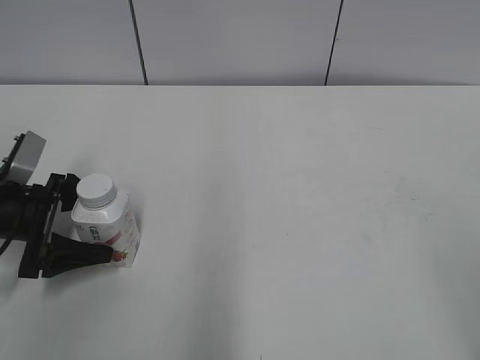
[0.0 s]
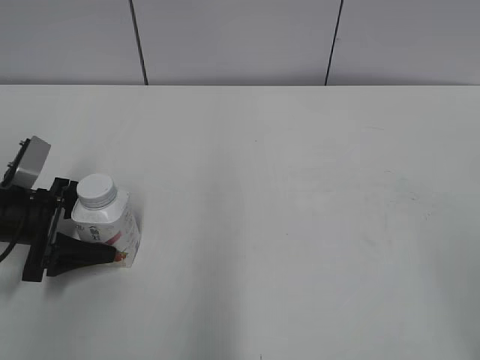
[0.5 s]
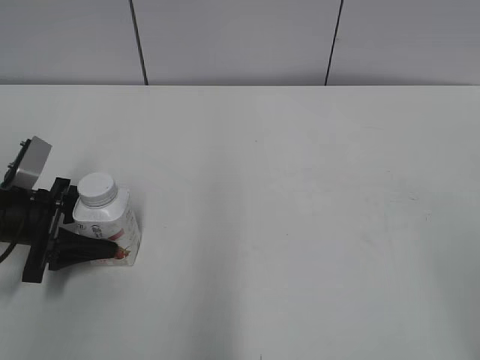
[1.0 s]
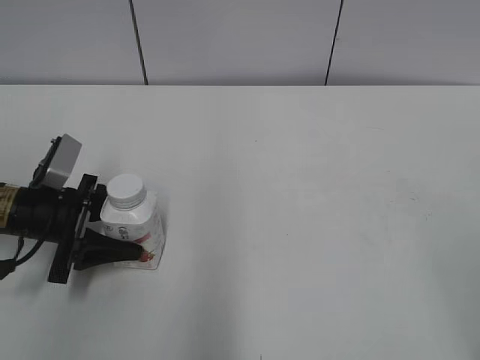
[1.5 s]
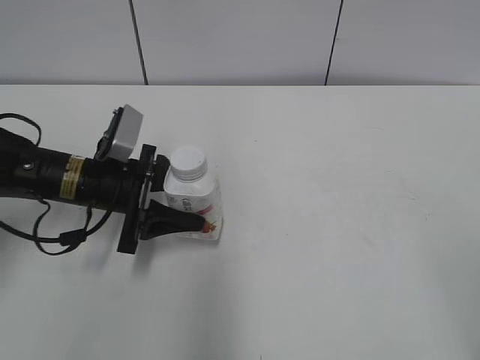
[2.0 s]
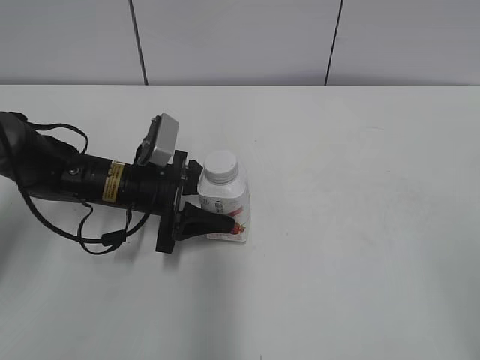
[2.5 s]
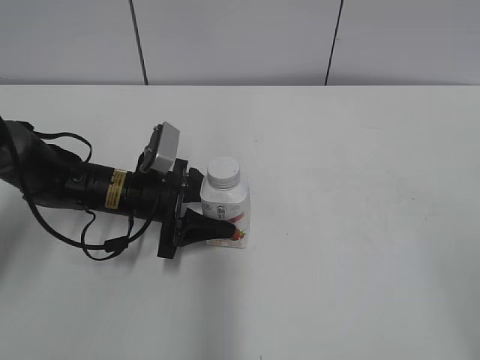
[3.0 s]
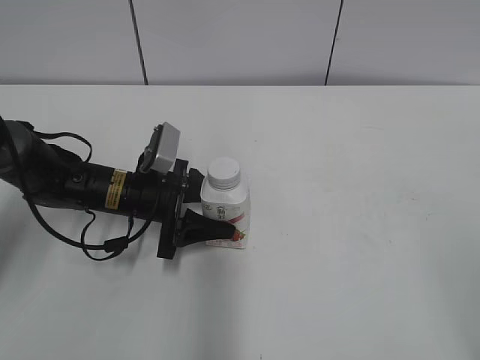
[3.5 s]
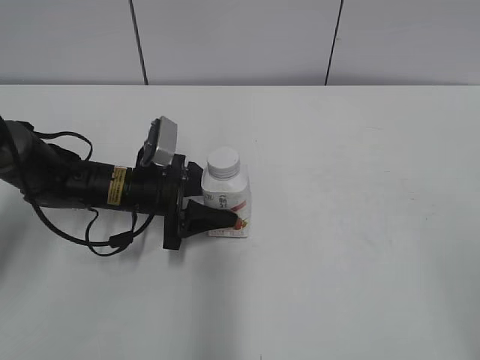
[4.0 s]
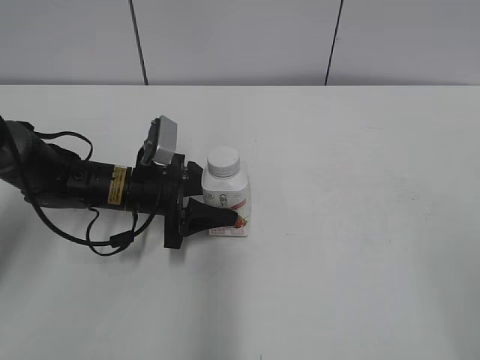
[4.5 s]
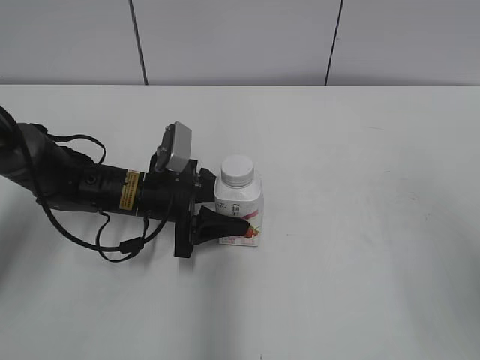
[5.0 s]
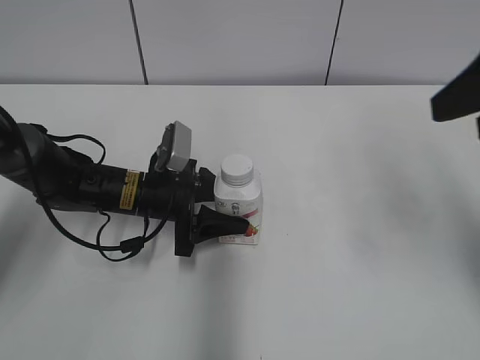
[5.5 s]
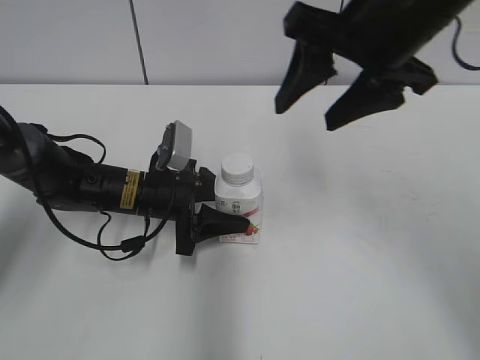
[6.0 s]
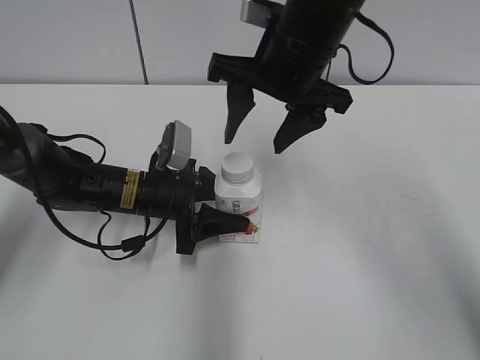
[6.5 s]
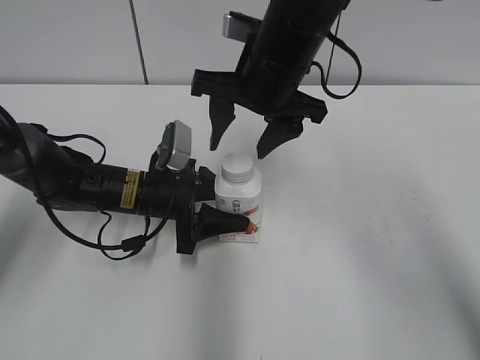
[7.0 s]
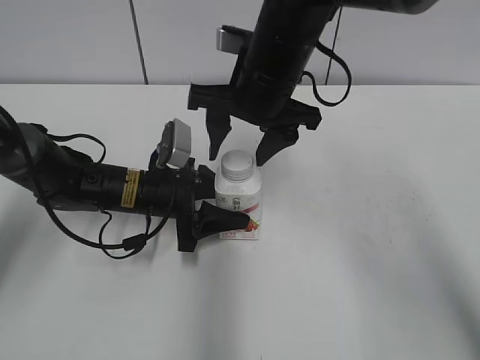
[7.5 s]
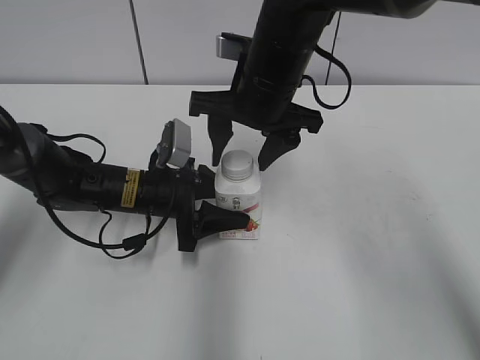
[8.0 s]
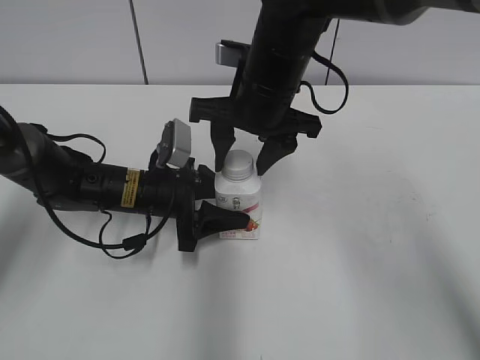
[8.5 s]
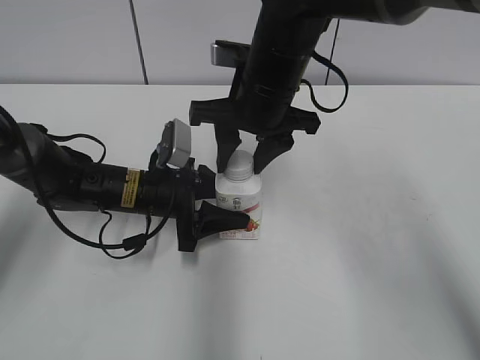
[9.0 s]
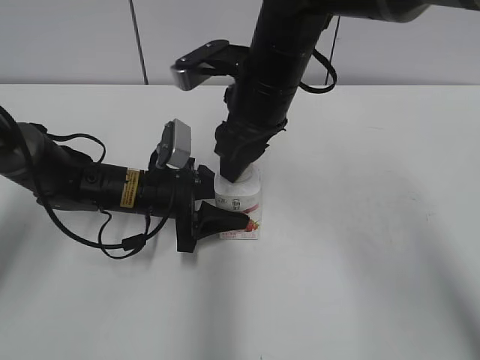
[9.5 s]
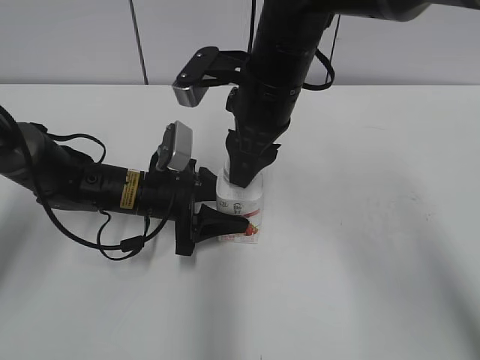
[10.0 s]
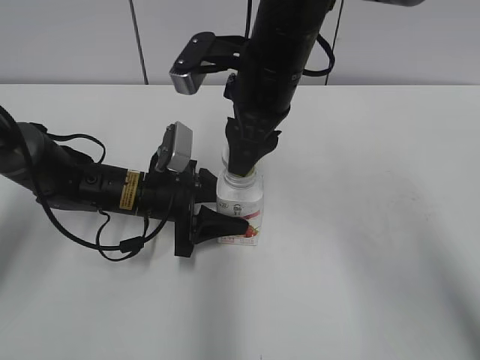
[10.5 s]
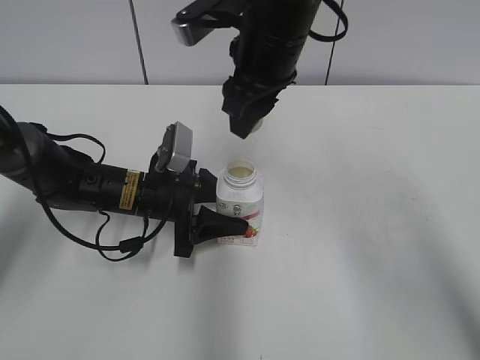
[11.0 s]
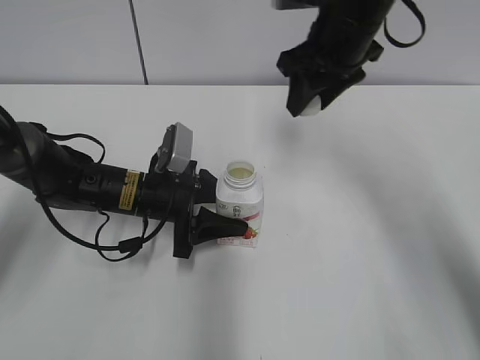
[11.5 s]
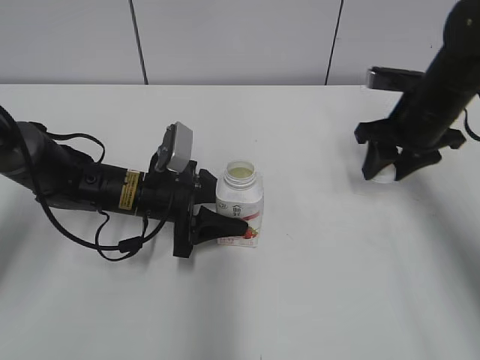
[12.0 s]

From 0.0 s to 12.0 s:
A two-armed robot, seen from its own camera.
Step, from 1.5 s to 3.0 s: Move the Yili Changqing from left to right.
From 0.0 s to 2.0 s: The left gripper heads to the right, covering about 10 cm, and closes up.
From 2.0 s to 4.0 s: The left gripper shifts by some 5 cm.
From 4.0 s to 6.0 s: The right gripper goes some 35 cm forward and to the left.
From 6.0 s to 8.0 s: The right gripper goes approximately 15 cm downward, to the left and forward.
From 8.0 s to 10.0 s: The right gripper closes its fingers.
From 10.0 s to 12.0 s: The right gripper heads to the right, covering approximately 20 cm.

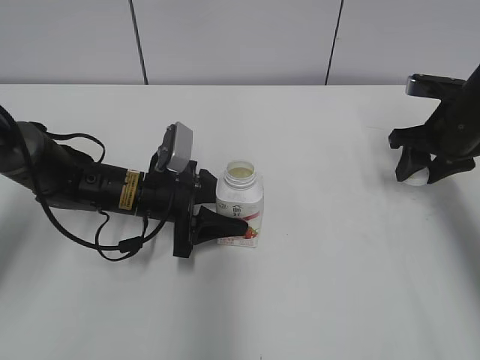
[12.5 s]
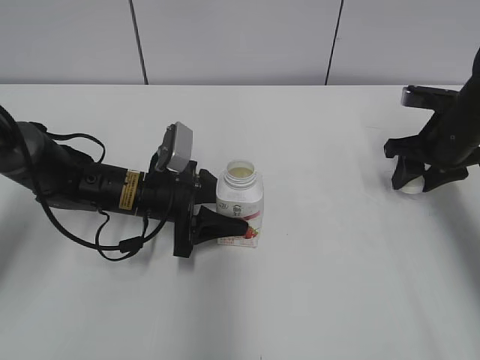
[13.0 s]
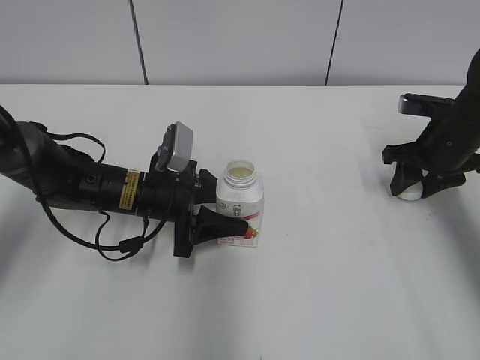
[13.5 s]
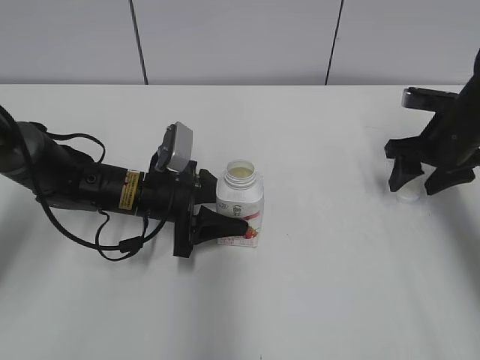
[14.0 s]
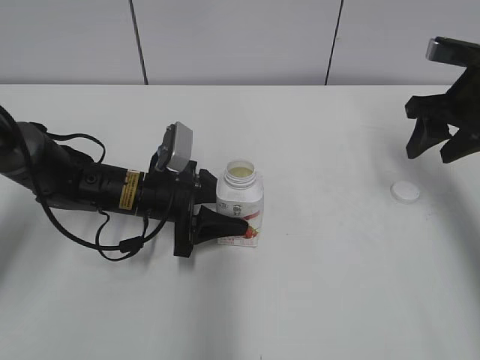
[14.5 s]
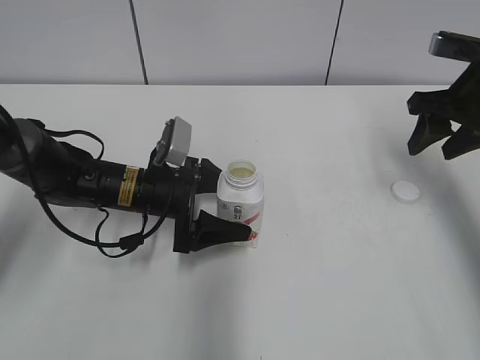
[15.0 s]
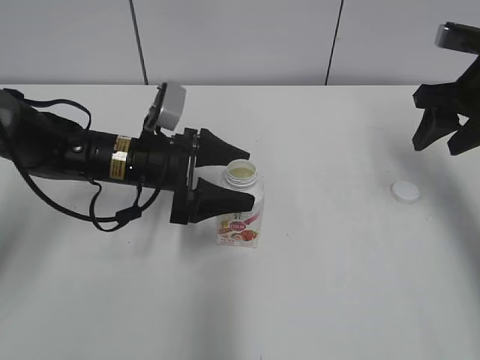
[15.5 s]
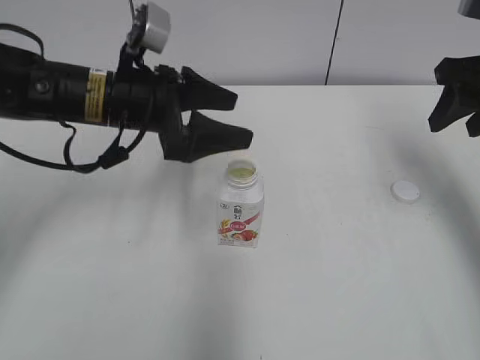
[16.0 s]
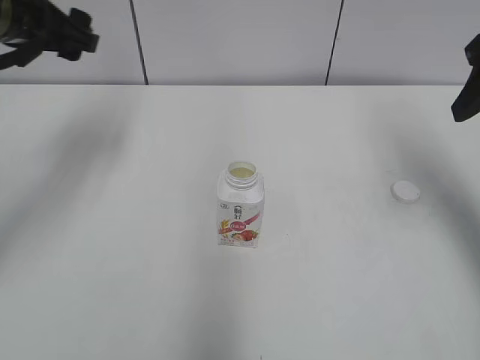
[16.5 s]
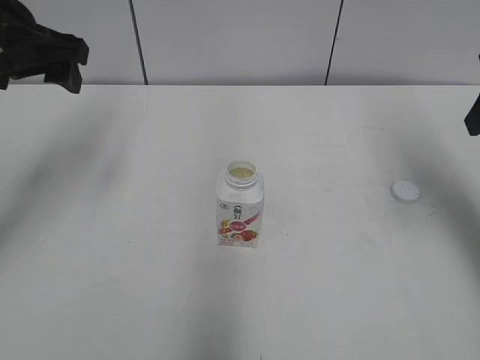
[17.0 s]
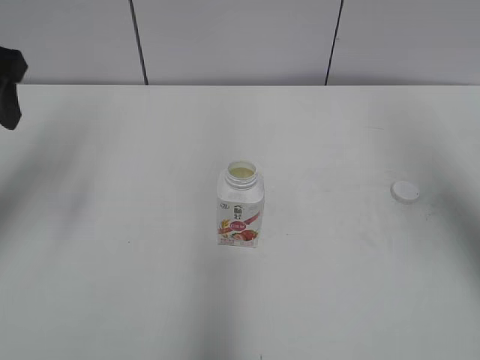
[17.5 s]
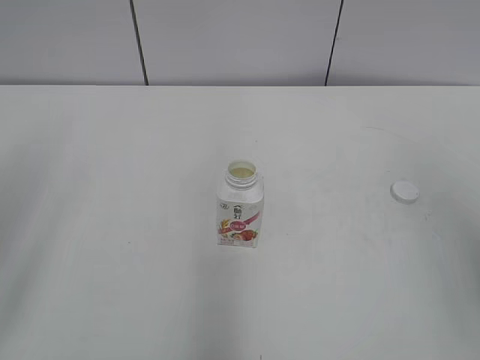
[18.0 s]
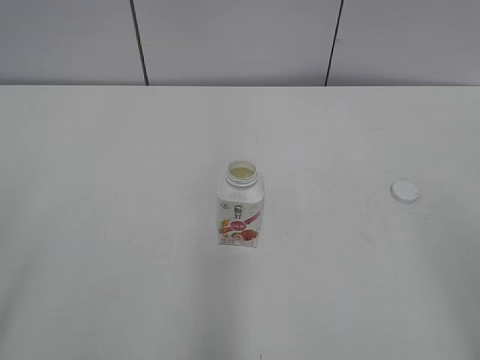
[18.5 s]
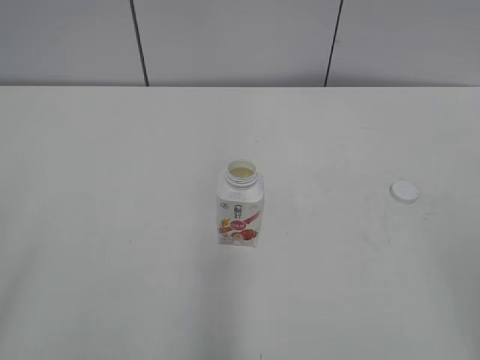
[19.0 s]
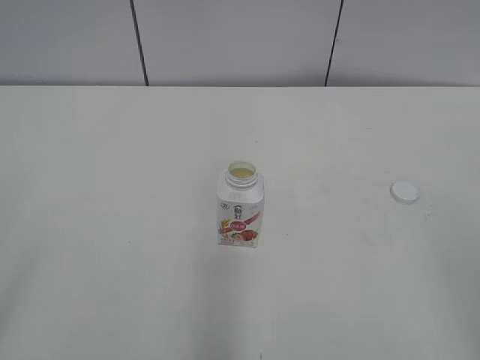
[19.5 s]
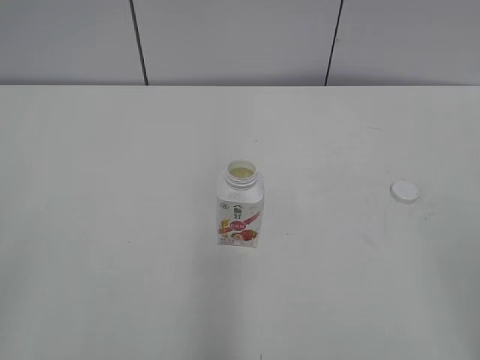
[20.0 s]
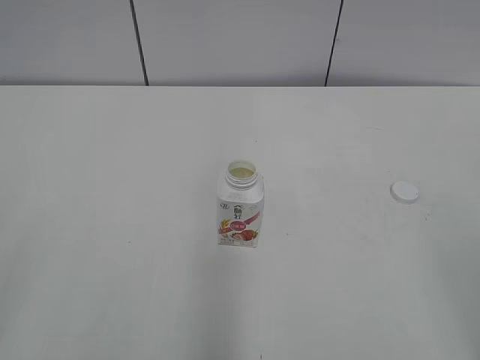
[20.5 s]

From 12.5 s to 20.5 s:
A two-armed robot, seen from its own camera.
From 12.5 s to 14.5 s: The right gripper heads upward, covering about 5 cm, and opens.
From 14.5 s to 16.5 s: The left gripper goes some 25 cm upward and to the left, and opens, while the right gripper moves upward and backward, some 10 cm.
From 16.5 s to 18.5 s: The grippers both shift backward by some 30 cm.

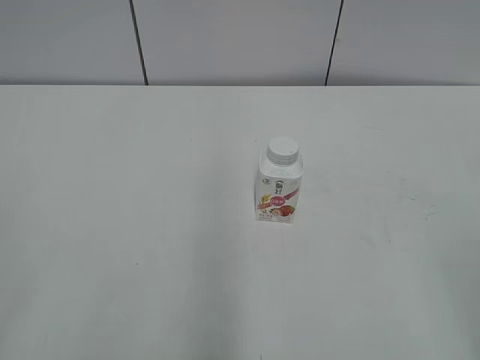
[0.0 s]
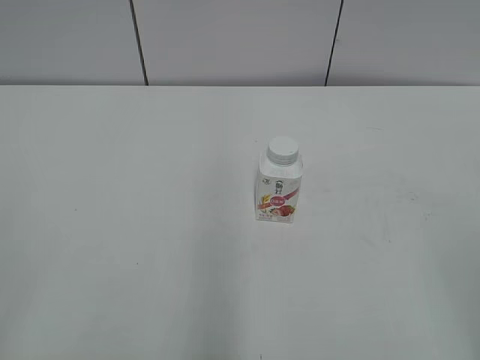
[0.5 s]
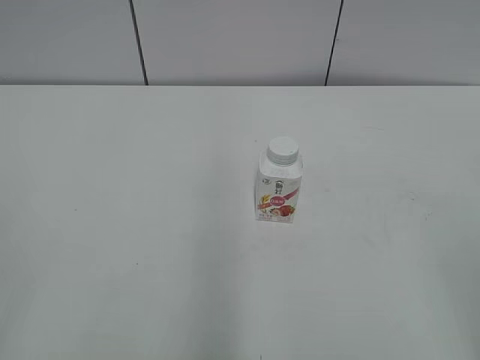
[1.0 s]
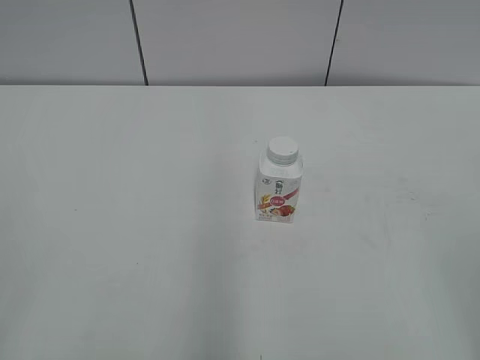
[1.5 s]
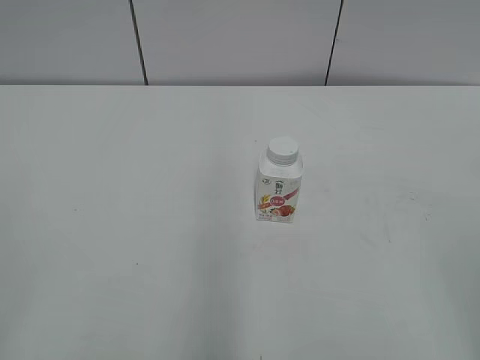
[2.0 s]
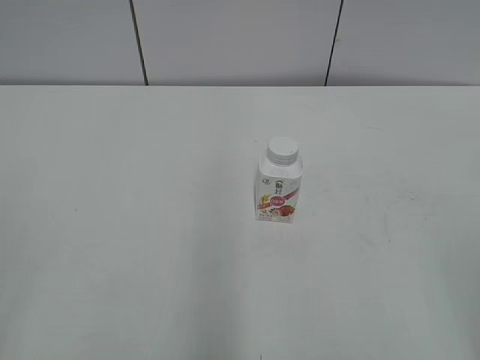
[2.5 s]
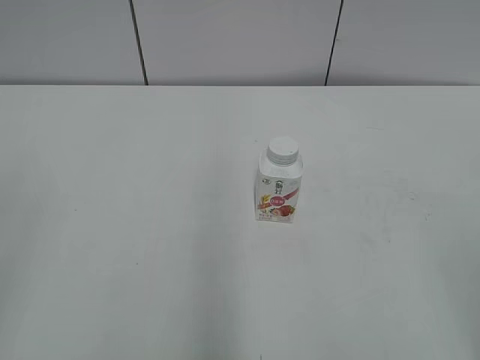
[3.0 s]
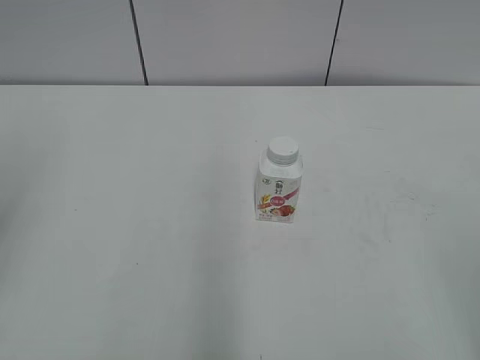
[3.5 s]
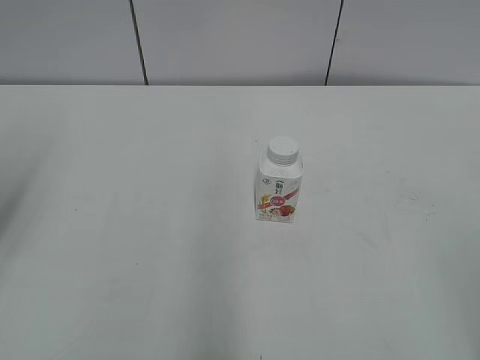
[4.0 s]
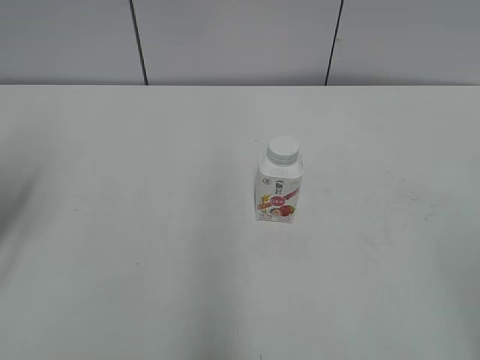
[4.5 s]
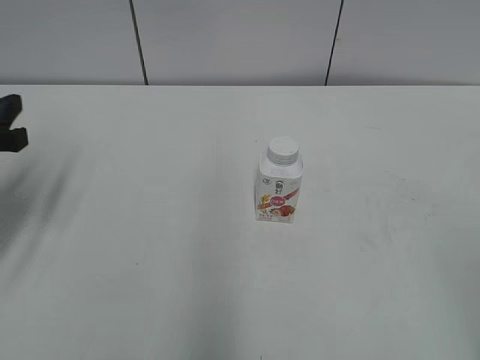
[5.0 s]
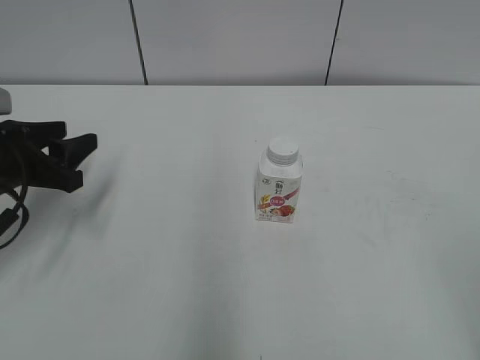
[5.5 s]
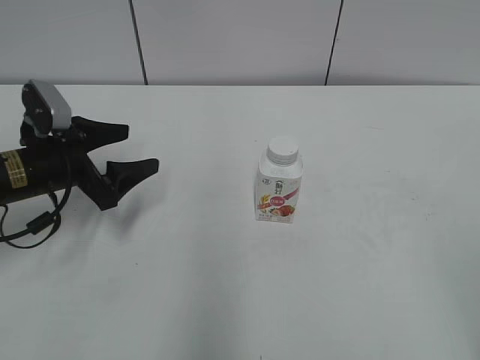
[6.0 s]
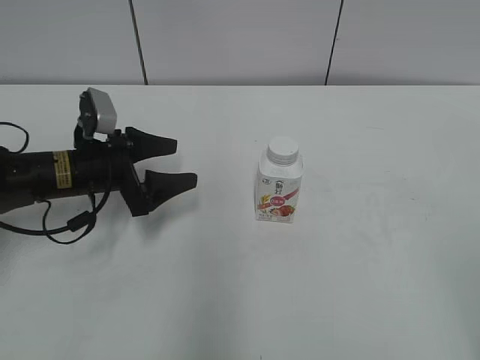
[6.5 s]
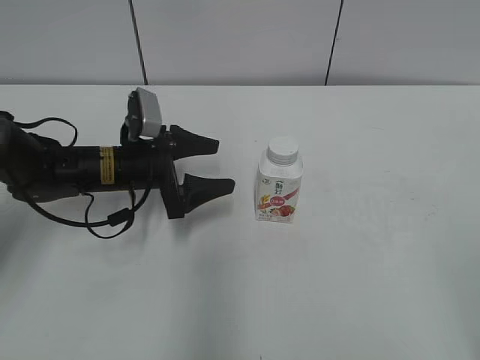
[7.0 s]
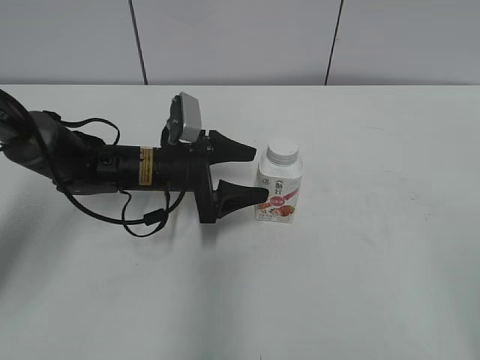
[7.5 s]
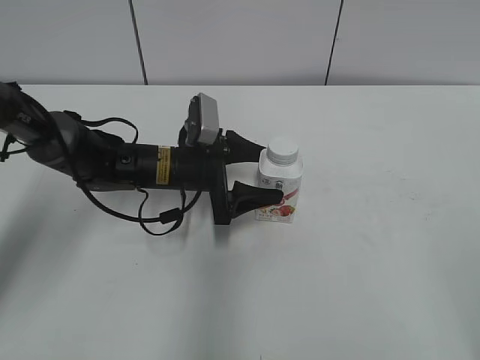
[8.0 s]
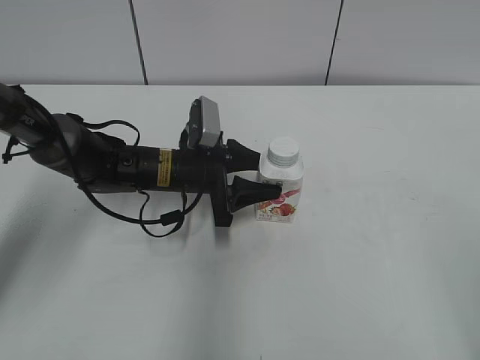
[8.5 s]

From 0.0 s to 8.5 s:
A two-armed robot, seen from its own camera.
Step, from 0.0 s to 8.0 s: Grab the Yili Changqing with the left hand.
From 4.0 s to 6.5 s: The left gripper moves downward, forward and to the right, about 25 cm, and opens its fingers.
From 6.5 s to 8.5 s: The left gripper heads to the right, covering approximately 10 cm, and closes.
